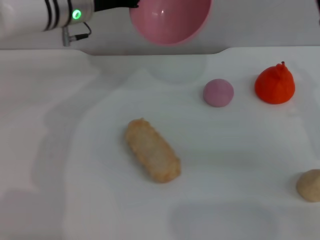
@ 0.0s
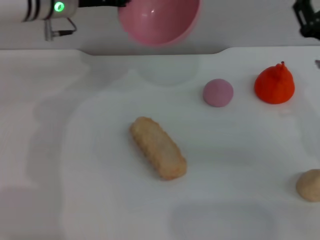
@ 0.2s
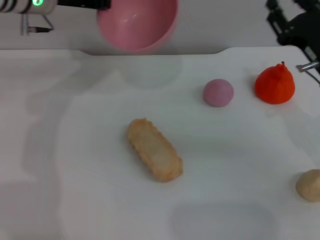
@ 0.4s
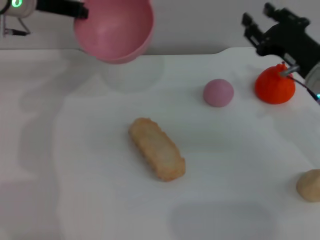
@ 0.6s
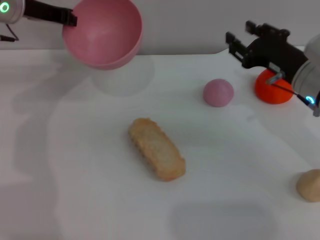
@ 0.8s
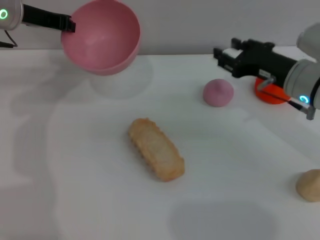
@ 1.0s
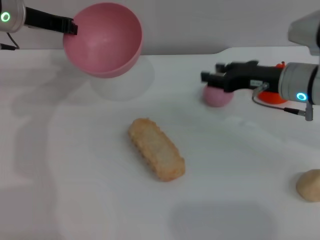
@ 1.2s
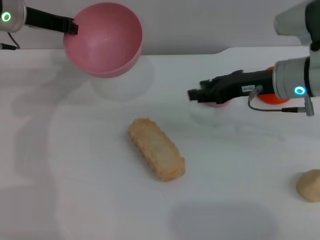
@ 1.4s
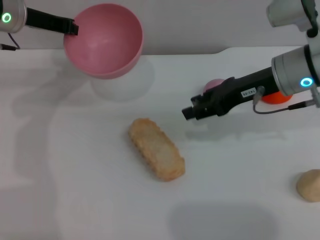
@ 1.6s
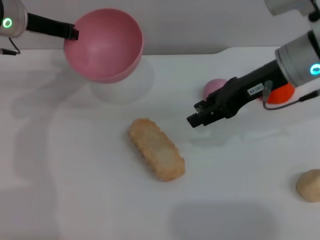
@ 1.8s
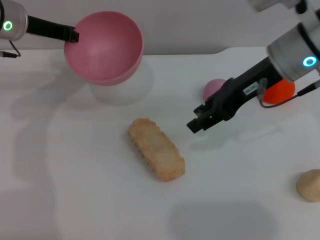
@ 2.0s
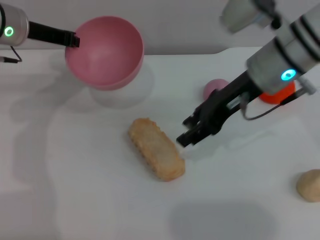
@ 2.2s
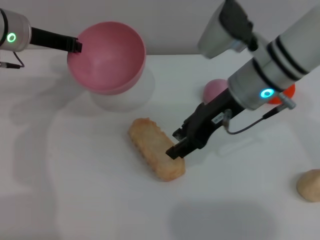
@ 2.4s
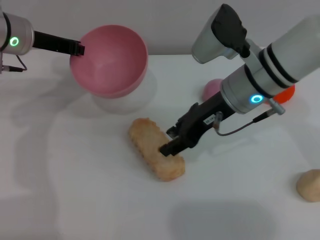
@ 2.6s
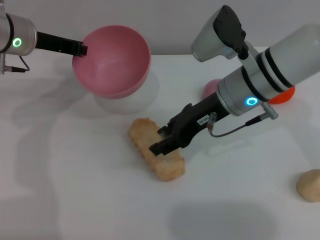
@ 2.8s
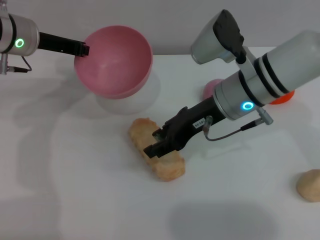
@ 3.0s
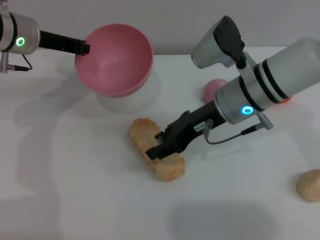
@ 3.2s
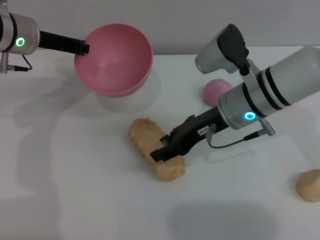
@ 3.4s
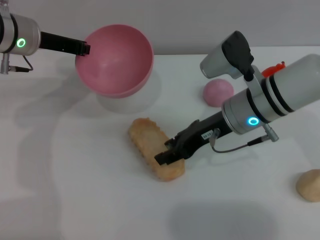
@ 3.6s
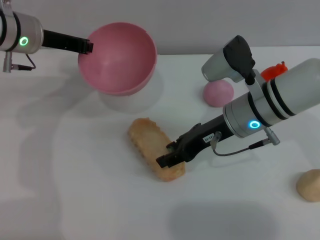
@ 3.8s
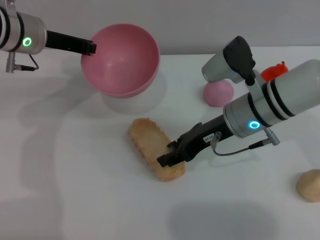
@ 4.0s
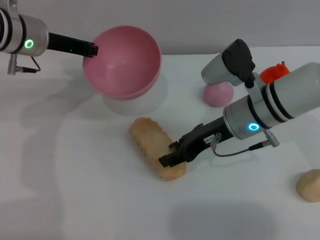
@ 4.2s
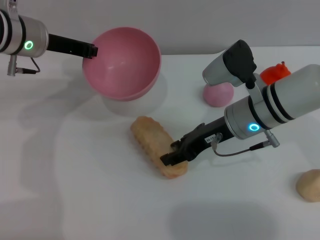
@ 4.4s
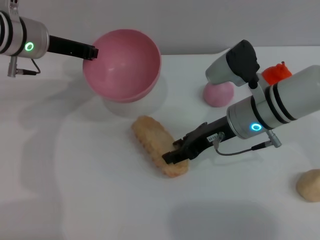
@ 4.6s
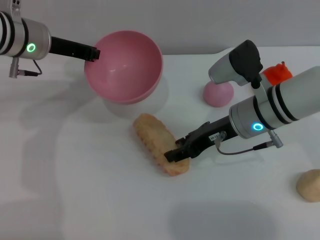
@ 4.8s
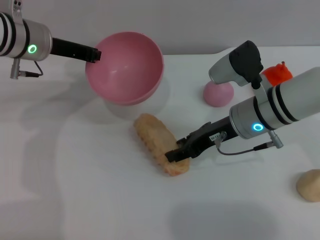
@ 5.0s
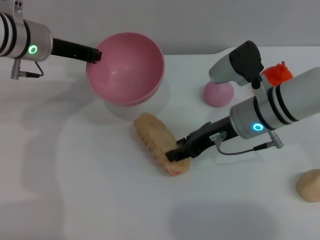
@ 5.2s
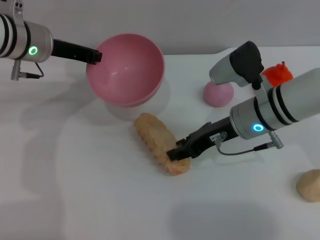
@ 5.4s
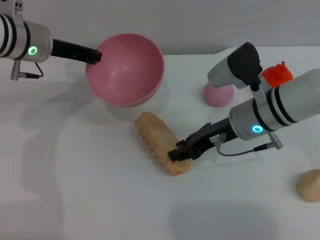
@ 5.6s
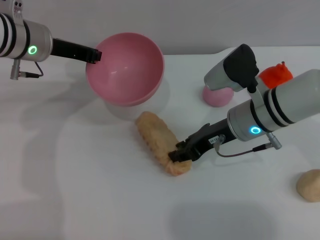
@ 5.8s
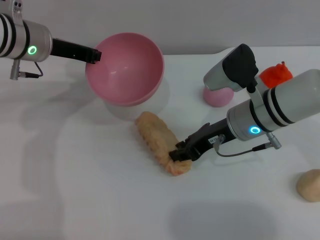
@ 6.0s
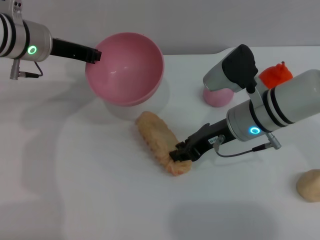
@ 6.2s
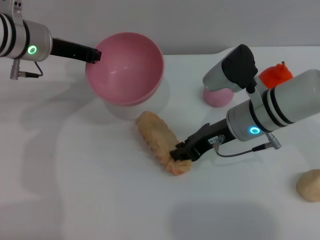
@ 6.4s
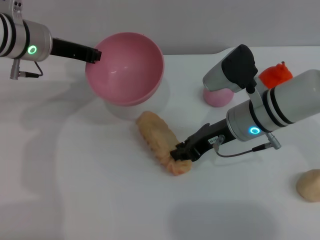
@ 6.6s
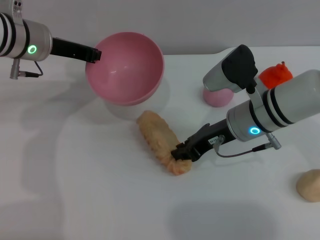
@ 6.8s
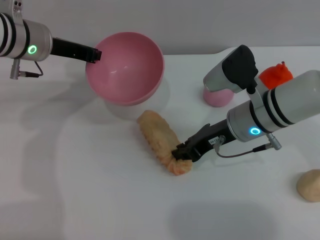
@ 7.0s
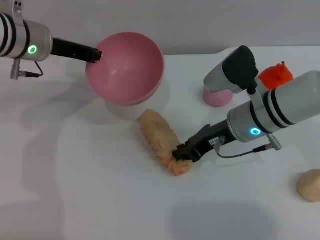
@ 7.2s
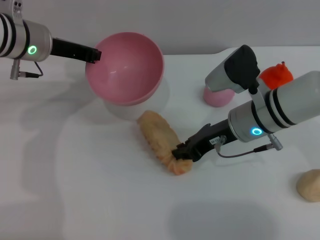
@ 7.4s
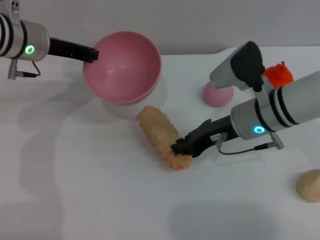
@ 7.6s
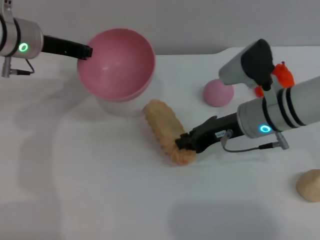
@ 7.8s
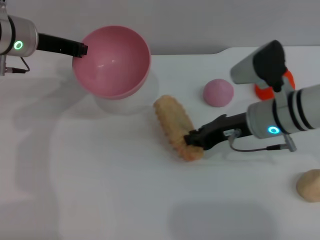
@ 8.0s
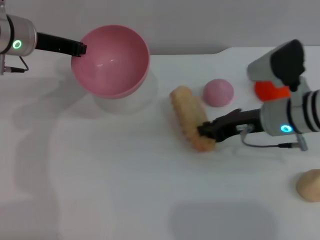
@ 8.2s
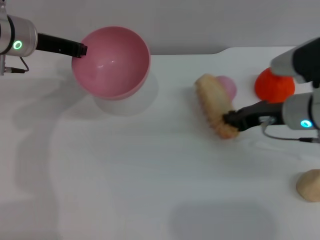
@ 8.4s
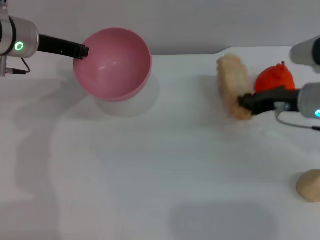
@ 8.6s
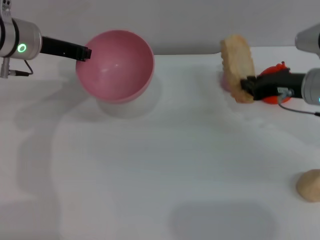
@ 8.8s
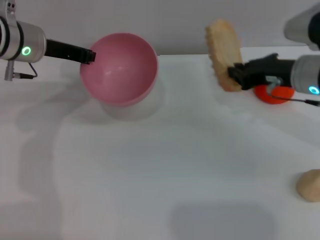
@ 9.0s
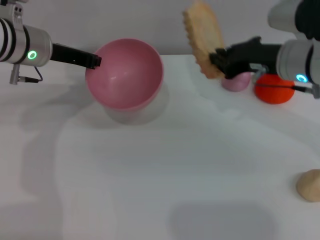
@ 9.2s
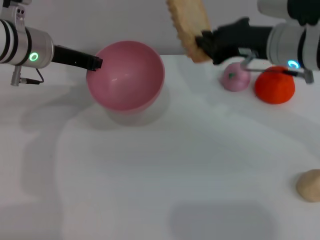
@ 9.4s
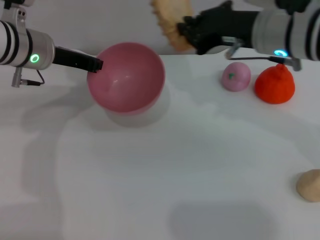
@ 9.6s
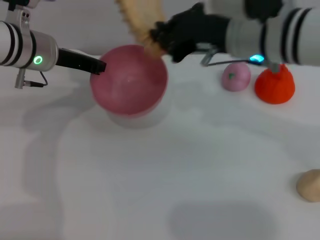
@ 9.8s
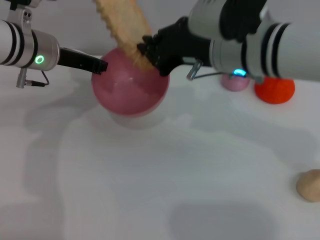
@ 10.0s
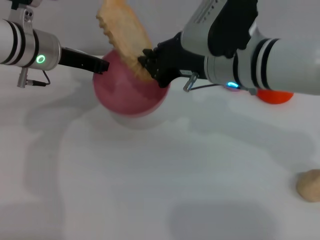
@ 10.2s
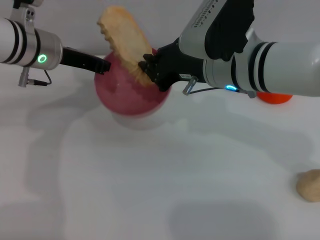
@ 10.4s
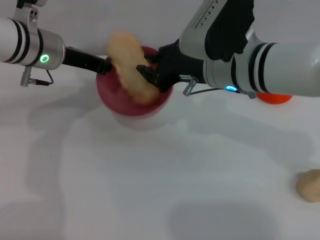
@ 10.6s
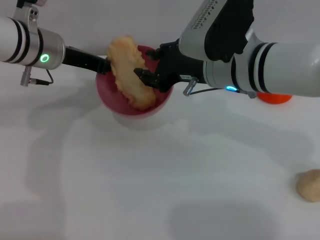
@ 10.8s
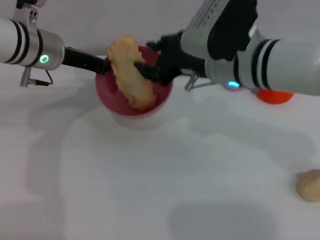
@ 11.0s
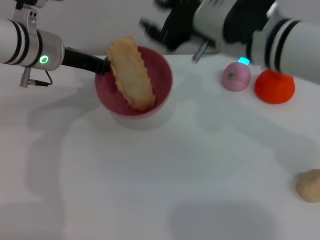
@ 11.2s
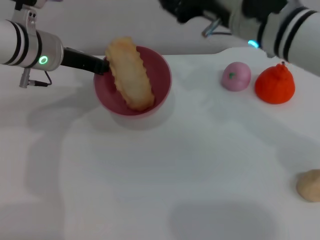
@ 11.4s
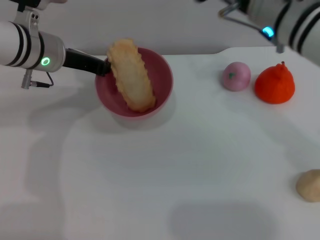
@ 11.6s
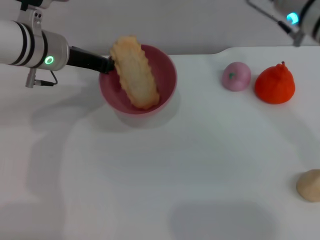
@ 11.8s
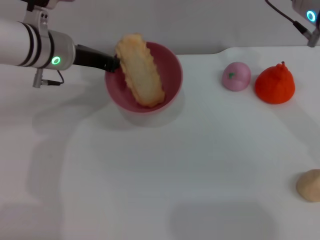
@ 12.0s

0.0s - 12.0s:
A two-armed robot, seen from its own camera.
Task of the whole recording: put the bread into the pink bowl and pour it out repeatedly.
Step, 0.0s - 8.2s: Pick up the bread with the right gripper.
Step, 8.6s - 10.8s: Place the bread into the bowl.
0.0s - 1.6s: The left gripper travels to the left by about 10 cm, while the right gripper shifts approximately 10 cm to the left and forward.
1.6s - 3.0s: The right gripper is displaced to the left by roughly 10 cm.
3.0s - 4.4s: The right gripper shifts by some 5 cm.
4.4s - 6.0s: Both grippers stay about where they are.
6.0s - 7.6s: The two grippers keep their place.
7.6s - 9.0s: The right gripper is displaced to the right by some 10 cm.
9.0s - 10.4s: The right gripper is displaced to the left by roughly 15 cm.
10.4s - 12.0s: The right gripper shifts roughly 10 cm to the right, and opens up.

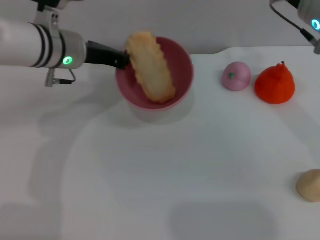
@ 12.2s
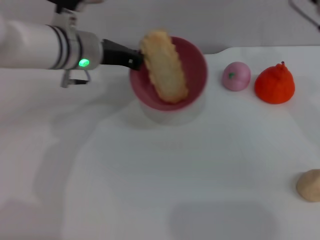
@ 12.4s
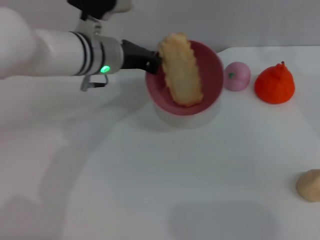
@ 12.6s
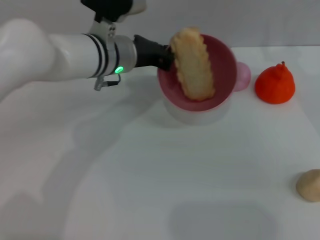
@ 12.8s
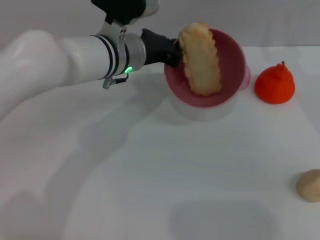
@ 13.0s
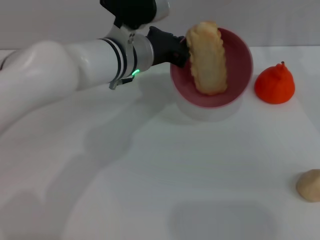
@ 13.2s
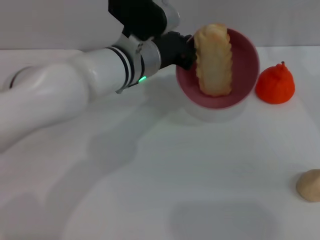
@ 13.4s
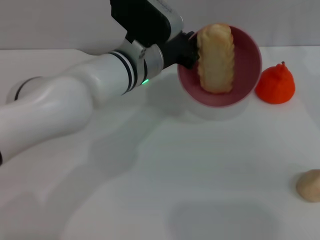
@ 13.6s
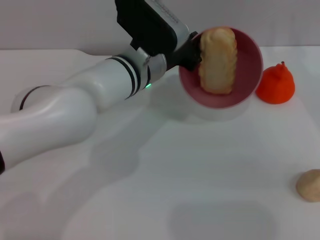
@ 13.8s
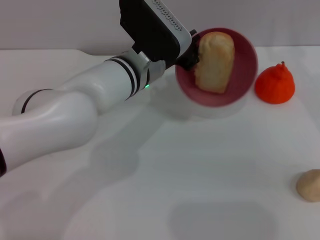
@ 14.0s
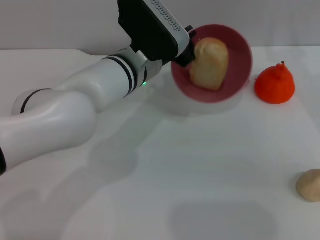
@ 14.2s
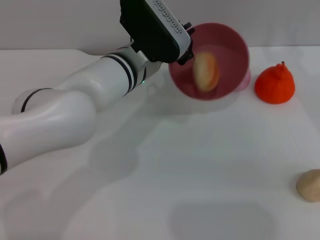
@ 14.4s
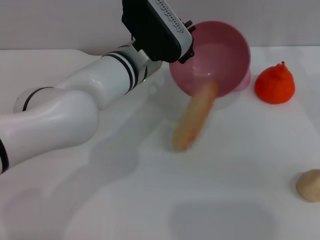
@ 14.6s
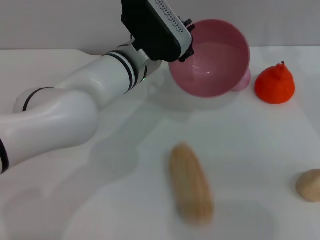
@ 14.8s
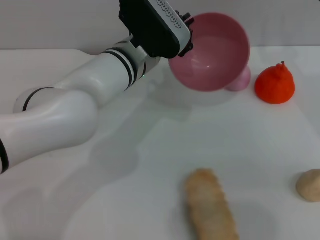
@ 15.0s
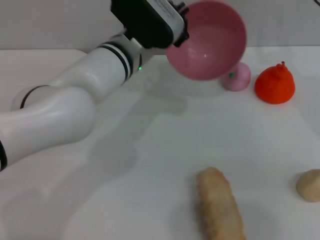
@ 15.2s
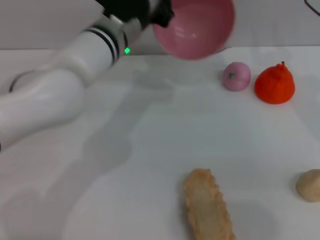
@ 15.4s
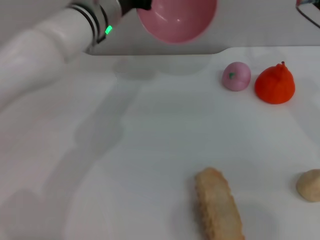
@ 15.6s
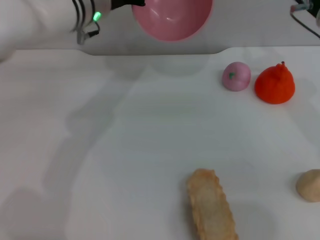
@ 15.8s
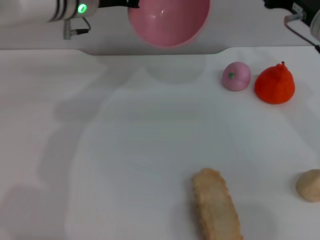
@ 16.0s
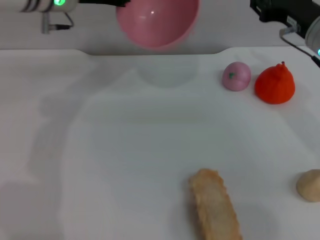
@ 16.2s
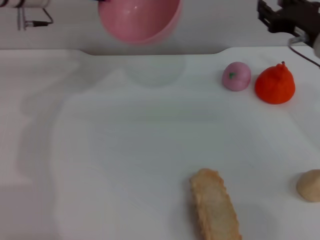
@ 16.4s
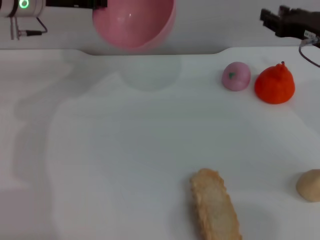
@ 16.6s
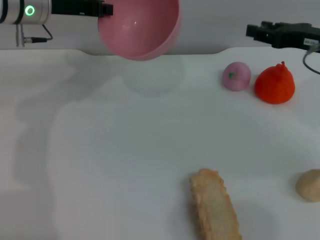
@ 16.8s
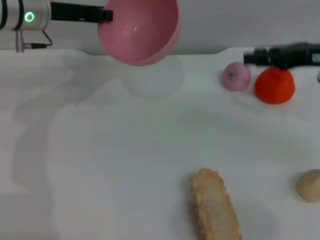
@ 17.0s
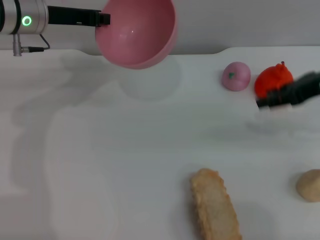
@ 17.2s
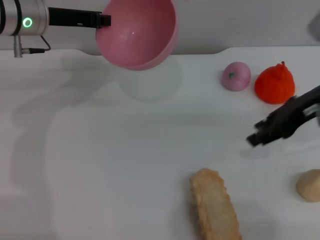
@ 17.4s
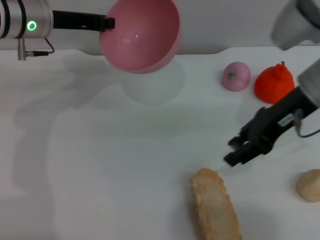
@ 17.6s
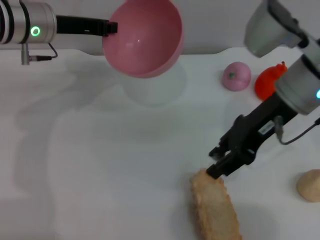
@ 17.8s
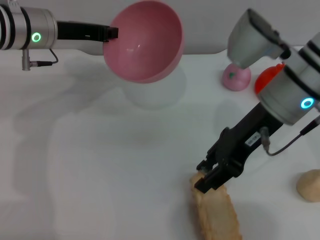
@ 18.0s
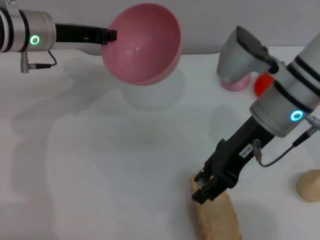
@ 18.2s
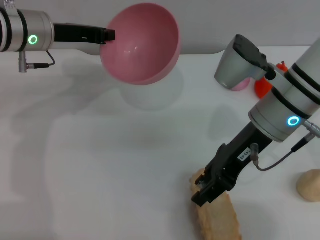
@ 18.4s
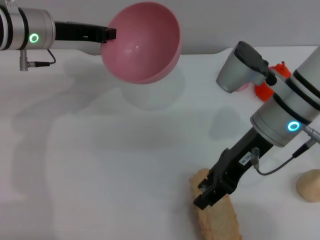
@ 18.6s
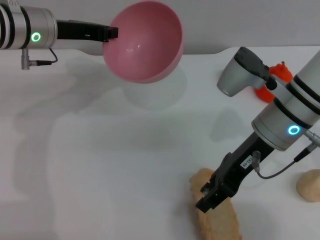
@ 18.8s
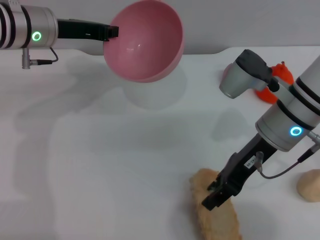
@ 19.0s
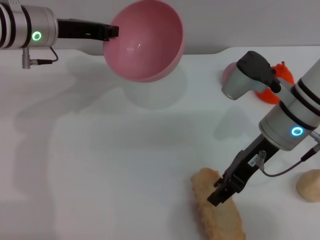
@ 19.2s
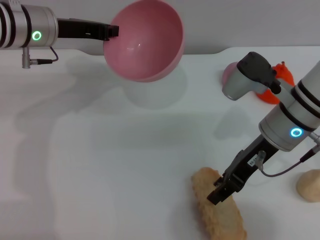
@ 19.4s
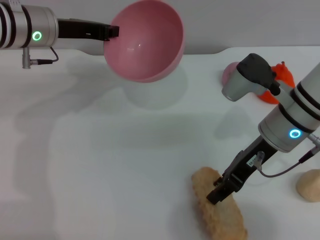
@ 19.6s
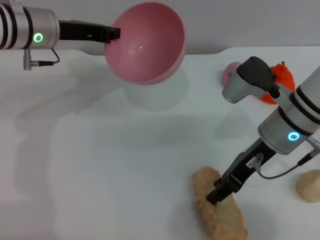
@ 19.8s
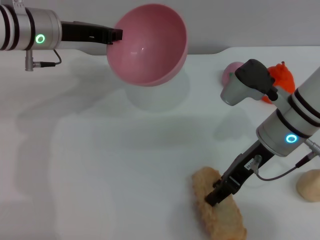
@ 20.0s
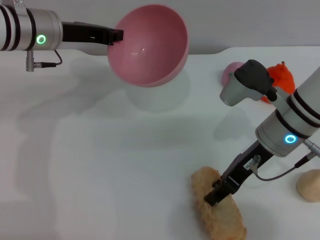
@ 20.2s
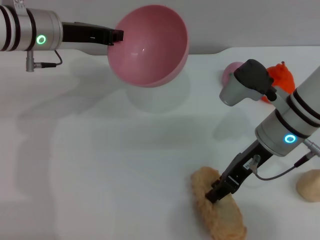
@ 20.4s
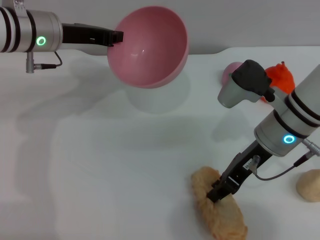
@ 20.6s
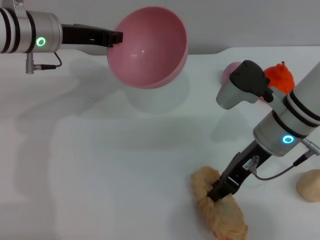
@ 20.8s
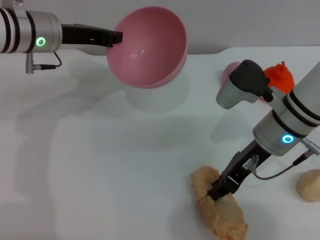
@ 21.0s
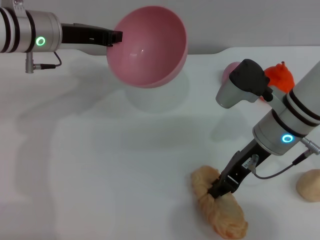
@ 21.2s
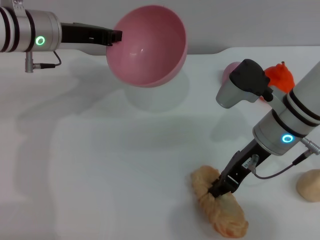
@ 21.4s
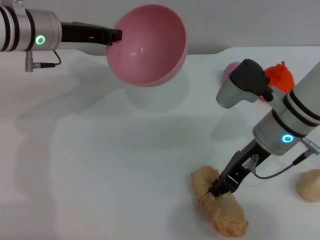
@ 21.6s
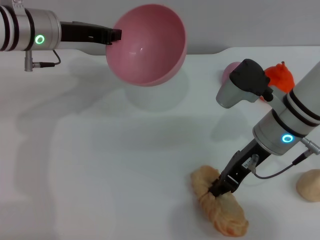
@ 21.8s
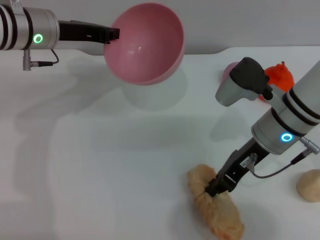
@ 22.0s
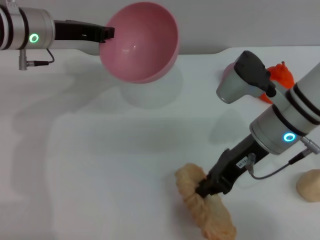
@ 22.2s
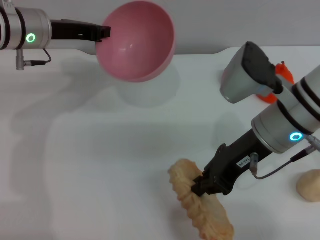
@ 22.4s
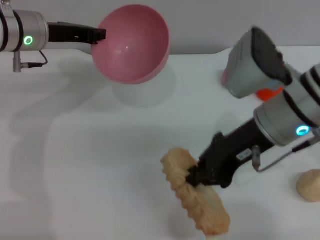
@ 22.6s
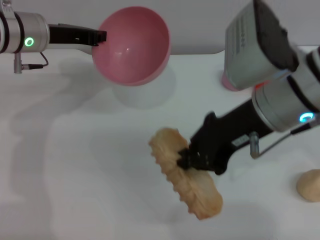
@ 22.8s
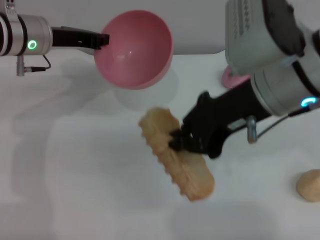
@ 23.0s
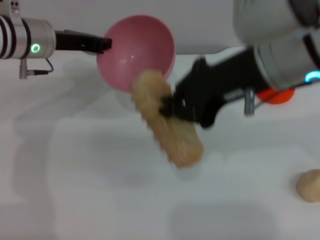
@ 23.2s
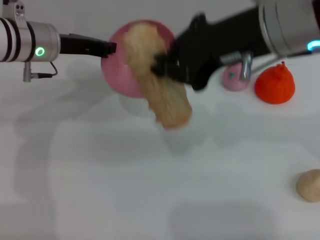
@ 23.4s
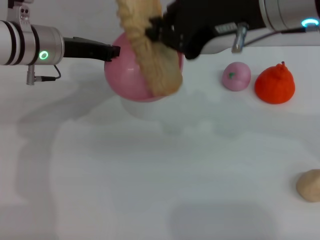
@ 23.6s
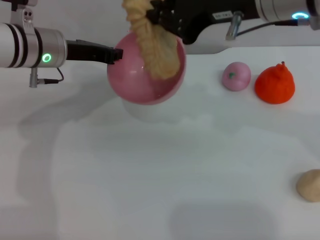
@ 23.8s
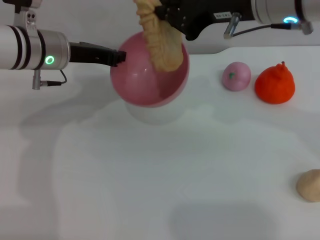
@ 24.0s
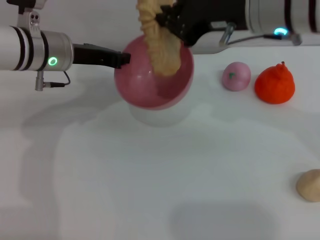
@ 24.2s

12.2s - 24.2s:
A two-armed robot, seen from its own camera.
Task of the whole recording: put the bread into the pink bowl and pour it out repeatedly.
Step, 12.2s - 14.8s: Pour the bread out of the bowl.
Step, 15.0s - 22.2s: Pick up the bread with the right gripper.
12.2s - 13.8s: The left gripper travels to the right by roughly 15 cm. The right gripper shifts some 5 cm to the right.
13.8s - 15.2s: There are only small adjustments of the grippers.
15.2s - 16.6s: The right gripper ends up some 5 cm from where it was. Meanwhile the left gripper travels to the left and upward by some 15 cm.
16.6s - 18.2s: The right gripper moves to the left, approximately 10 cm.
18.2s - 19.8s: The right gripper goes about 5 cm downward.
19.8s - 21.2s: The right gripper closes.
21.2s - 22.6s: The right gripper moves upward, approximately 5 cm.
22.6s - 24.2s: The right gripper heads upward and forward, covering about 10 cm.
